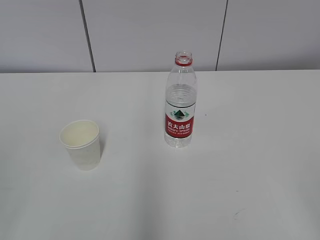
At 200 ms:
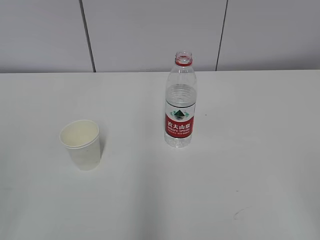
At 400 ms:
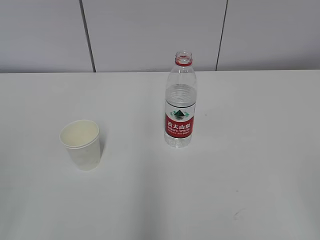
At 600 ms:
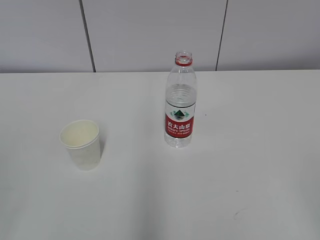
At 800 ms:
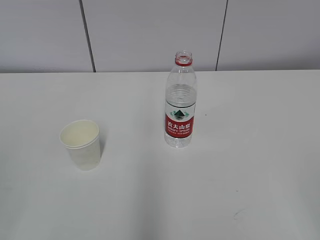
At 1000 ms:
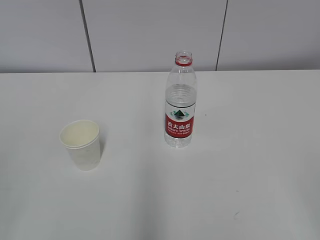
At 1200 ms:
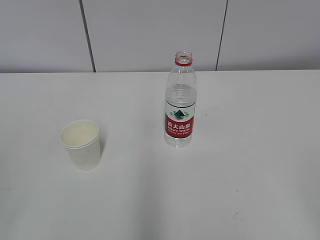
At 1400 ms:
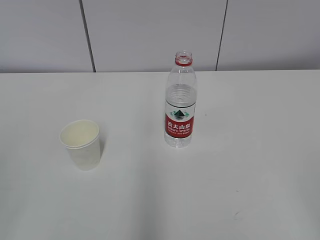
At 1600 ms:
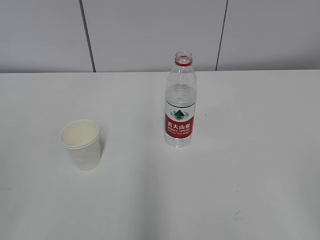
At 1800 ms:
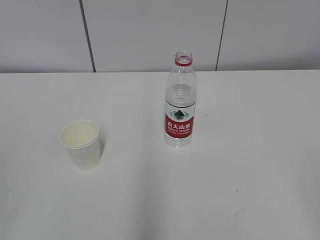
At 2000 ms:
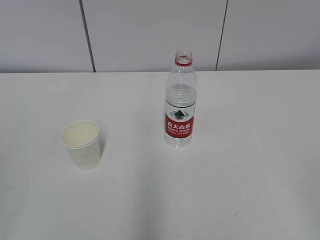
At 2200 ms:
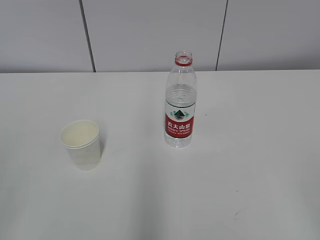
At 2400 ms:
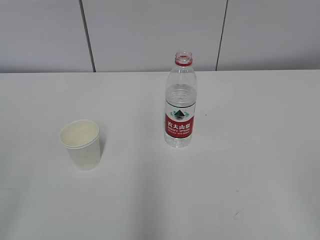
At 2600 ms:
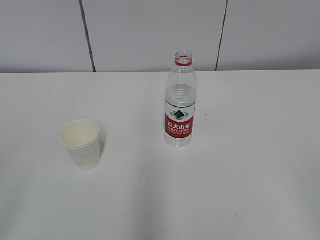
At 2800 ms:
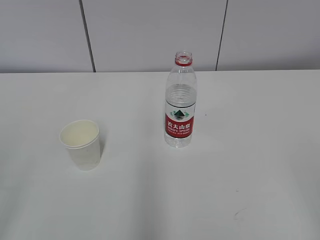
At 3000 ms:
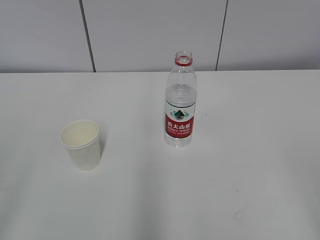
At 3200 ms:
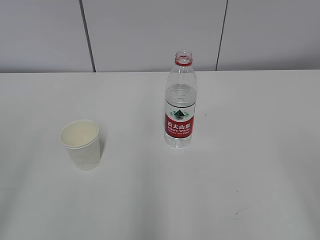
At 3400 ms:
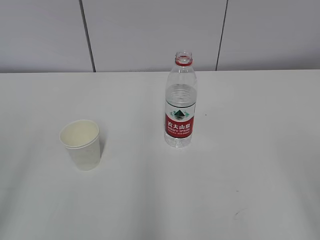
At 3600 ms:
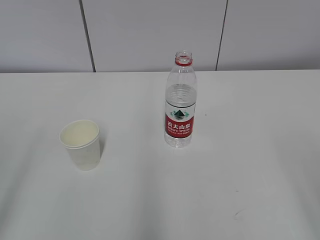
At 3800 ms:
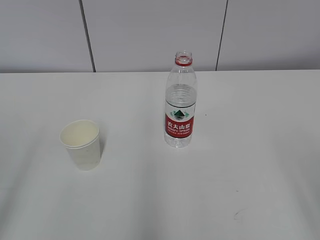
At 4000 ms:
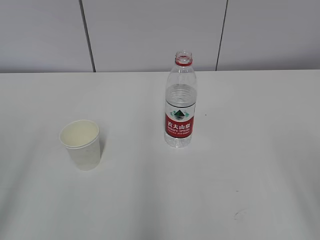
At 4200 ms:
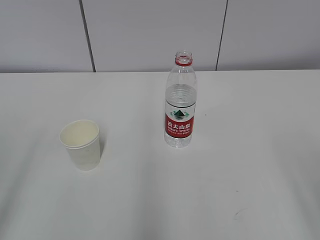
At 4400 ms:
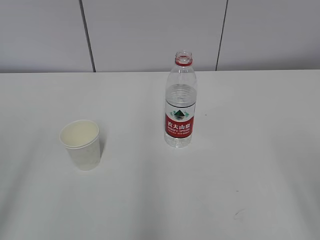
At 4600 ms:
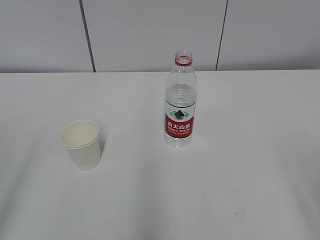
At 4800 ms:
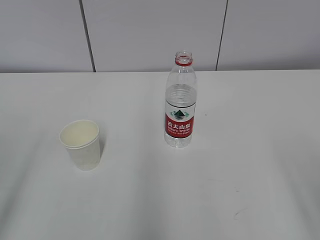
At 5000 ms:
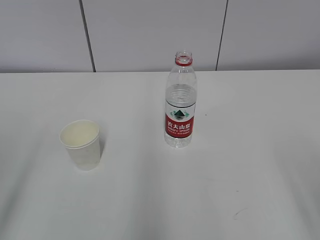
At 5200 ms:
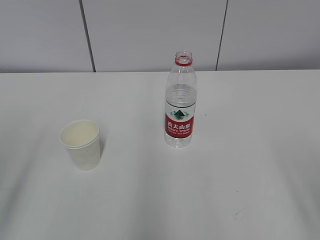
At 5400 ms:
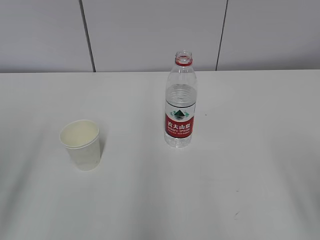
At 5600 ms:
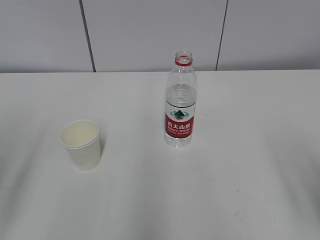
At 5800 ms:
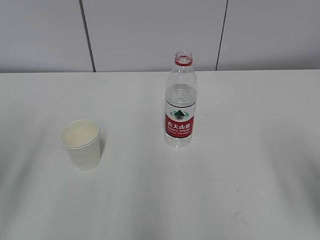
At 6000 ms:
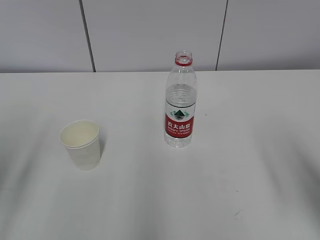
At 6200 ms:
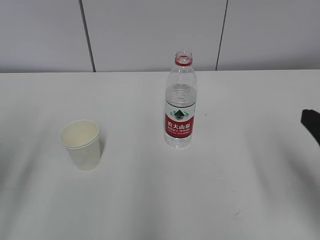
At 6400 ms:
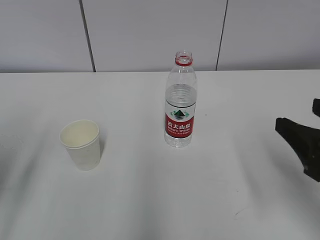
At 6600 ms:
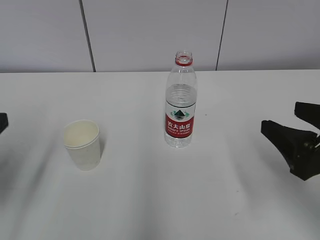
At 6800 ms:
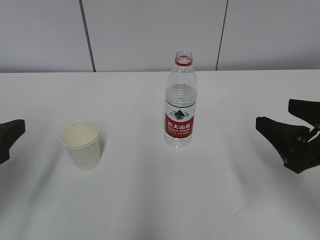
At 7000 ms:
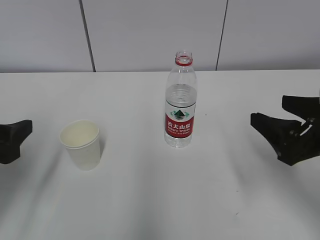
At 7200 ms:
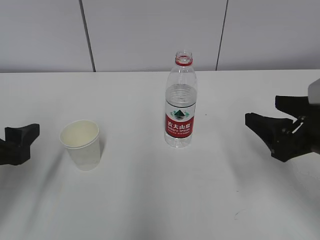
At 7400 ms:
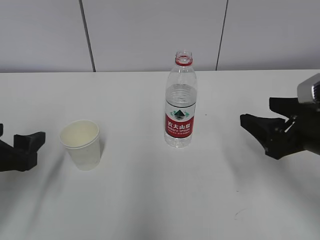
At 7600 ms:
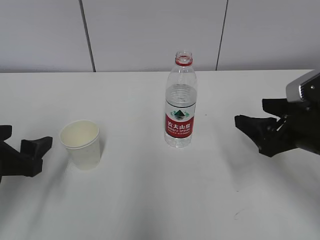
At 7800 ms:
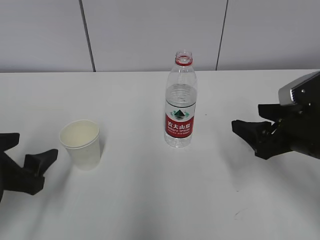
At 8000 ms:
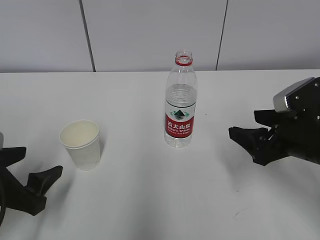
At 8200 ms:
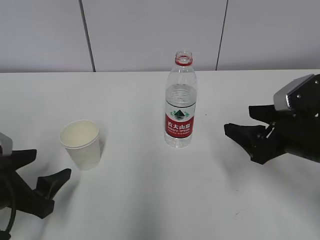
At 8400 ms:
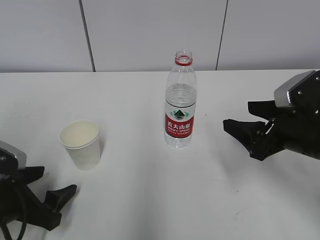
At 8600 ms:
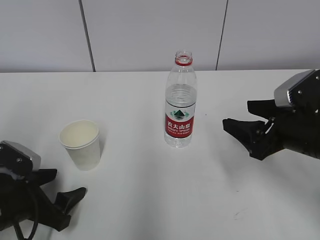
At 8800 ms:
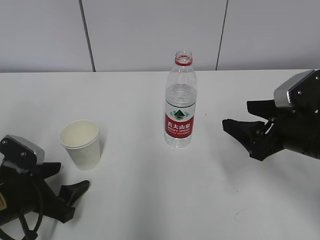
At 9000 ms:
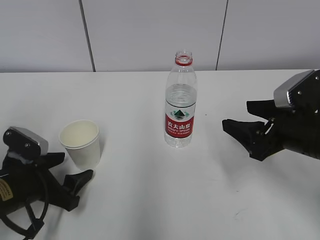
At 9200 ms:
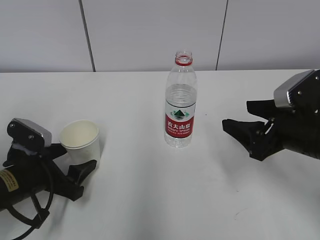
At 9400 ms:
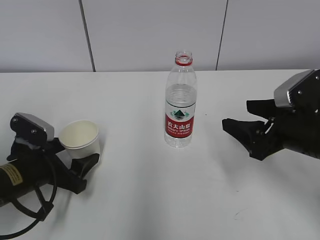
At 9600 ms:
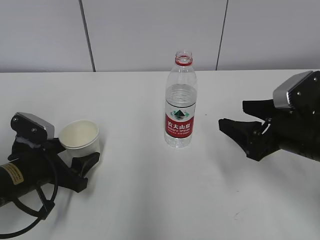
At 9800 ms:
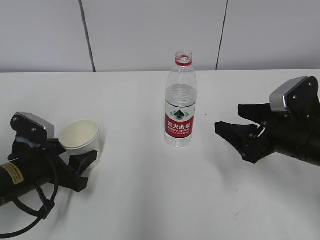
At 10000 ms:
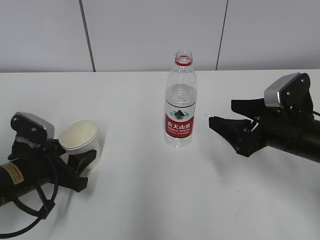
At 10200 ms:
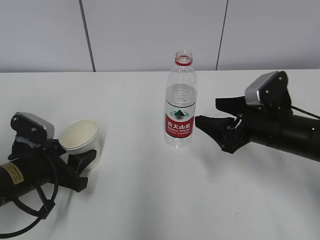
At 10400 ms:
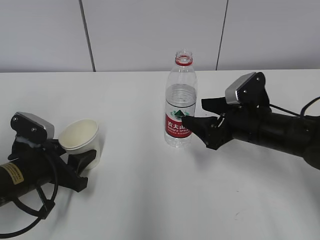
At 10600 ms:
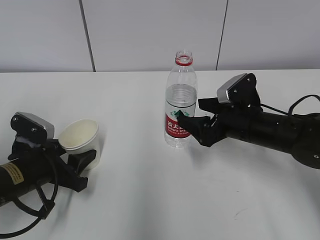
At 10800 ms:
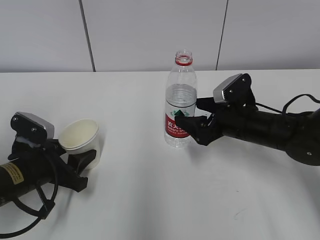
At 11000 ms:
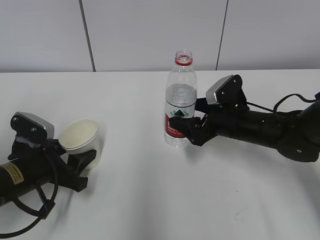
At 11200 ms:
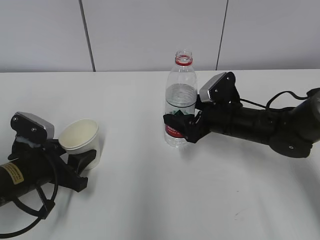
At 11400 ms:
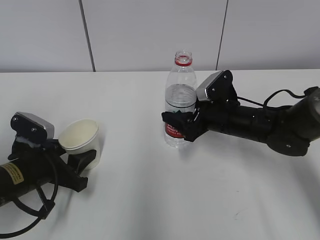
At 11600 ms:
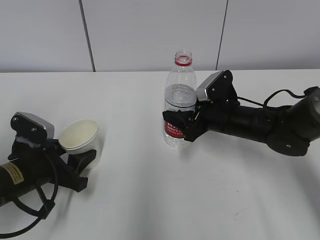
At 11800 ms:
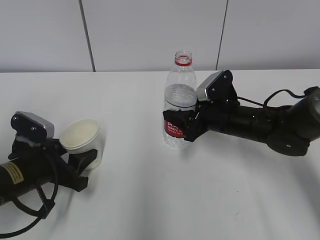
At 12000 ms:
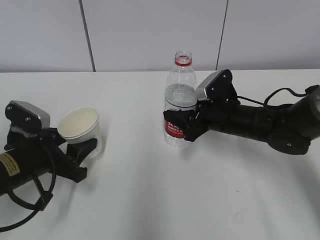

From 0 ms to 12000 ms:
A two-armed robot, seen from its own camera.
Step, from 0 ms to 9600 ms: Grab the paper cup with the left hand.
Step, from 9800 ms to 10000 ms: Grab the water bottle with the right hand.
From 4400 ms to 6000 ms: The right gripper heads forward, covering some 10 cm.
From 6000 ms to 7600 ms: The right gripper goes about 15 cm forward and downward, while the left gripper goes about 10 cm downward and forward.
From 7600 ms to 9000 ms: The left gripper travels downward by roughly 10 cm.
From 9000 ms to 10400 ms: The right gripper moves forward, roughly 5 cm; the left gripper closes its fingers.
From 10400 ms to 12000 ms: The right gripper shifts by roughly 5 cm, and closes its fingers.

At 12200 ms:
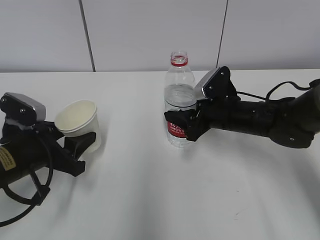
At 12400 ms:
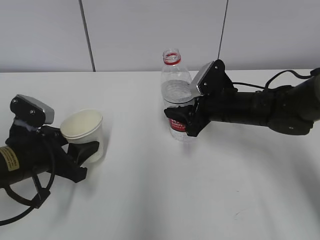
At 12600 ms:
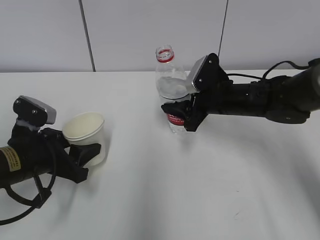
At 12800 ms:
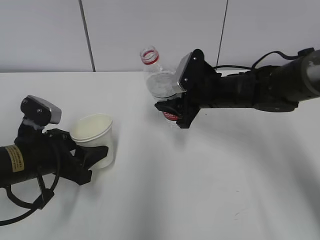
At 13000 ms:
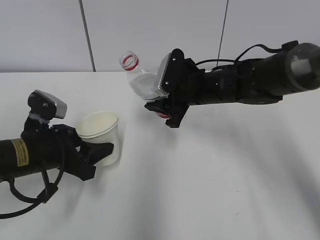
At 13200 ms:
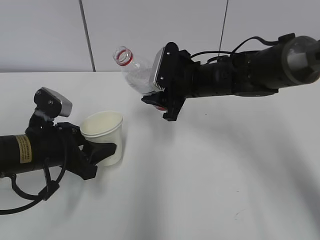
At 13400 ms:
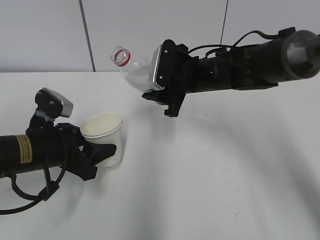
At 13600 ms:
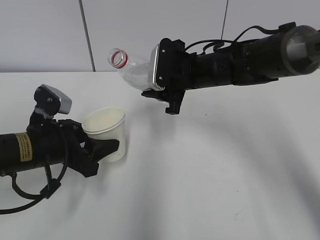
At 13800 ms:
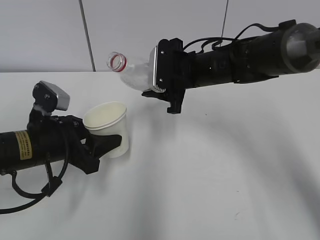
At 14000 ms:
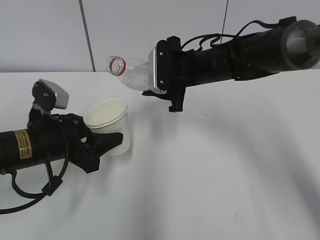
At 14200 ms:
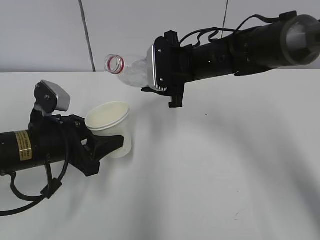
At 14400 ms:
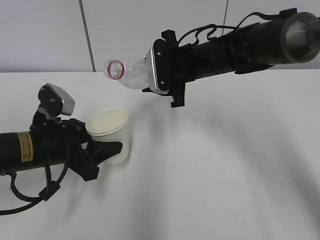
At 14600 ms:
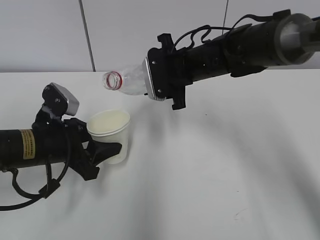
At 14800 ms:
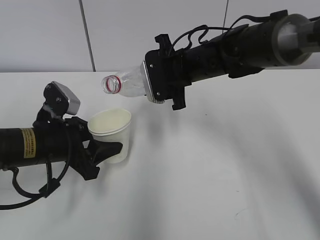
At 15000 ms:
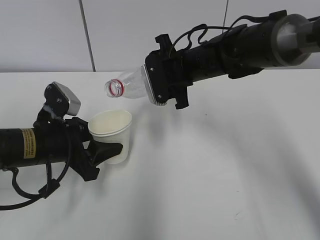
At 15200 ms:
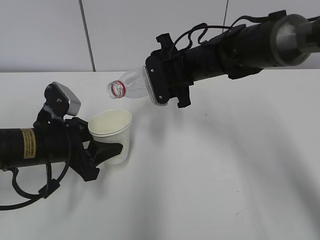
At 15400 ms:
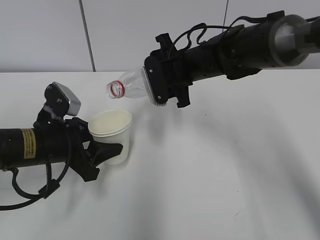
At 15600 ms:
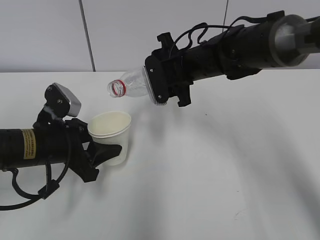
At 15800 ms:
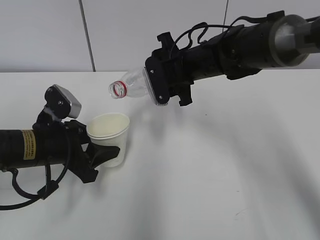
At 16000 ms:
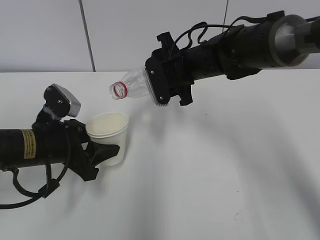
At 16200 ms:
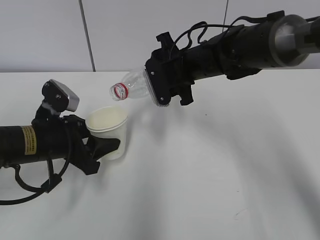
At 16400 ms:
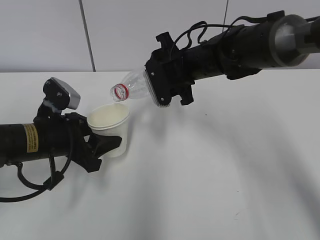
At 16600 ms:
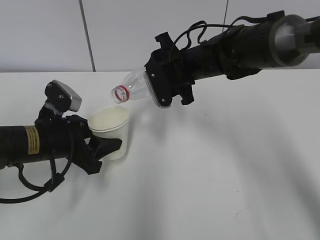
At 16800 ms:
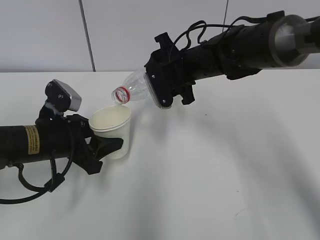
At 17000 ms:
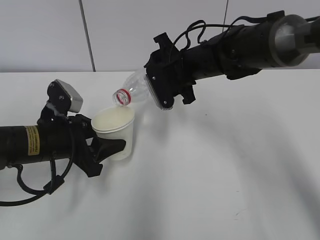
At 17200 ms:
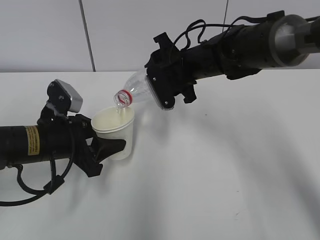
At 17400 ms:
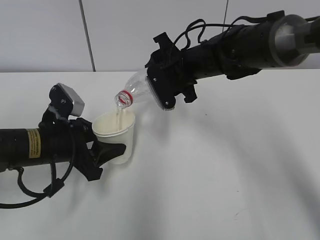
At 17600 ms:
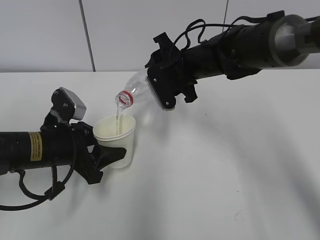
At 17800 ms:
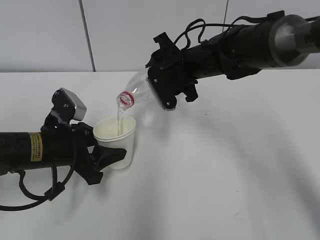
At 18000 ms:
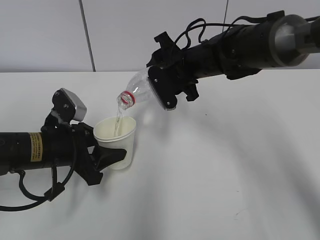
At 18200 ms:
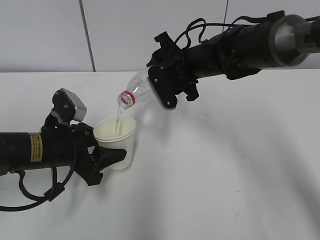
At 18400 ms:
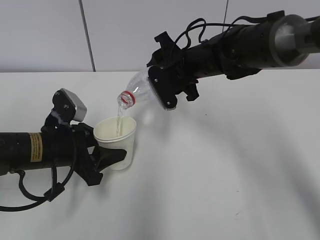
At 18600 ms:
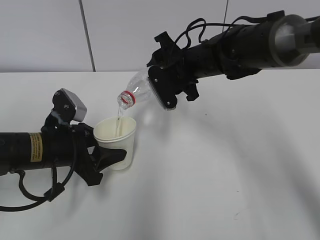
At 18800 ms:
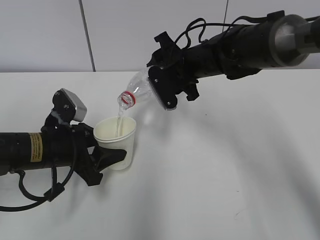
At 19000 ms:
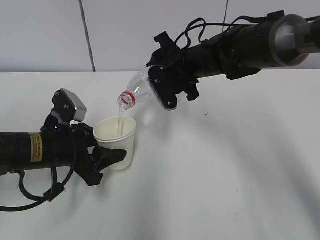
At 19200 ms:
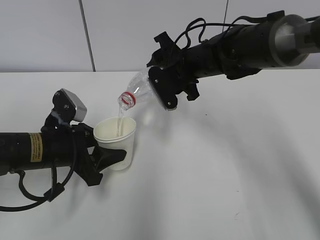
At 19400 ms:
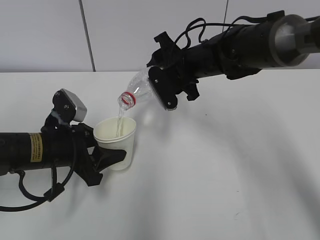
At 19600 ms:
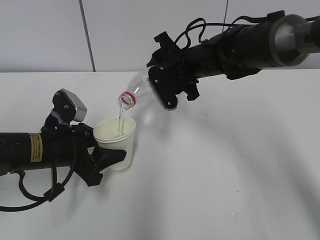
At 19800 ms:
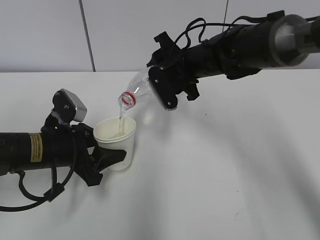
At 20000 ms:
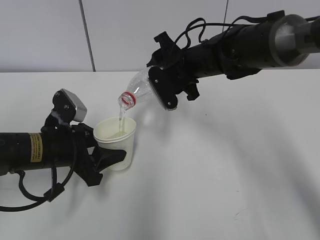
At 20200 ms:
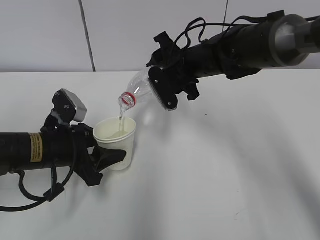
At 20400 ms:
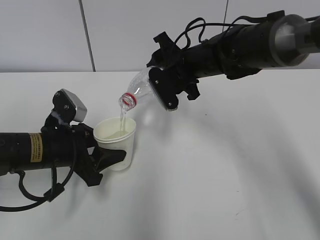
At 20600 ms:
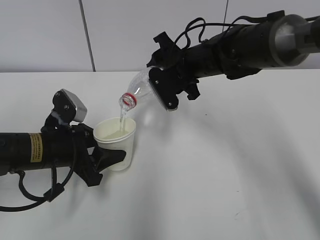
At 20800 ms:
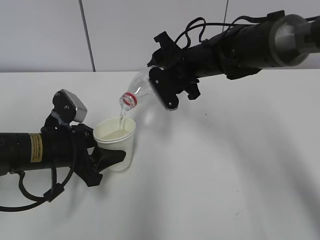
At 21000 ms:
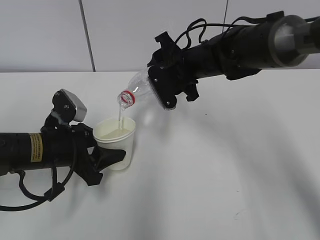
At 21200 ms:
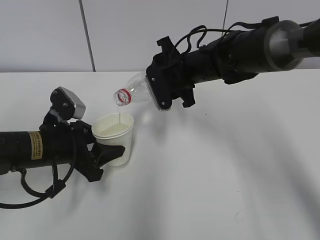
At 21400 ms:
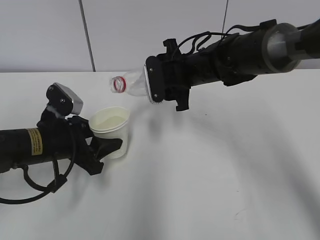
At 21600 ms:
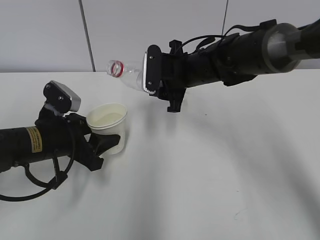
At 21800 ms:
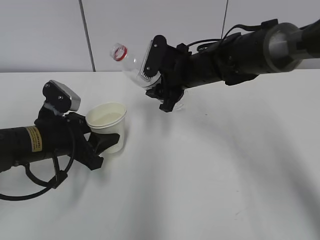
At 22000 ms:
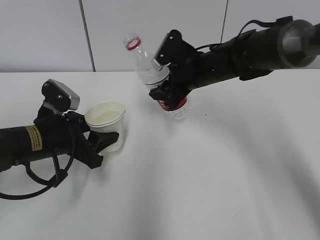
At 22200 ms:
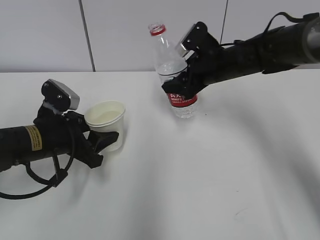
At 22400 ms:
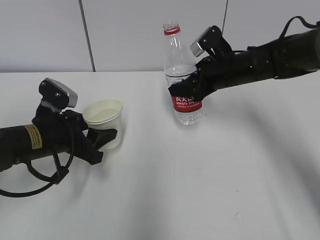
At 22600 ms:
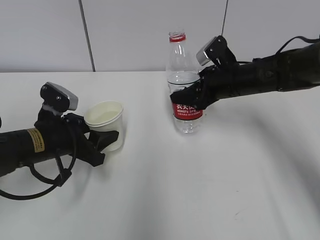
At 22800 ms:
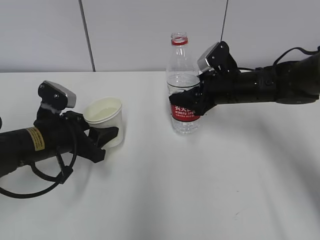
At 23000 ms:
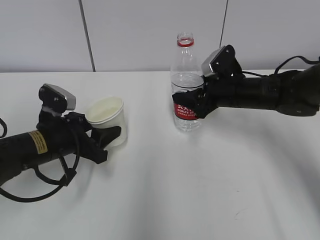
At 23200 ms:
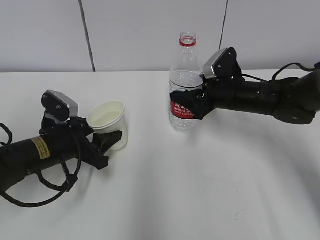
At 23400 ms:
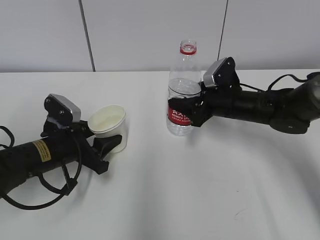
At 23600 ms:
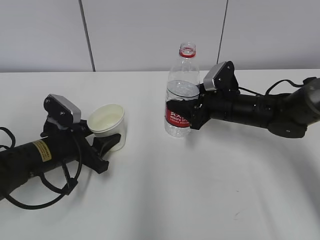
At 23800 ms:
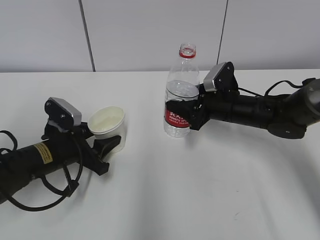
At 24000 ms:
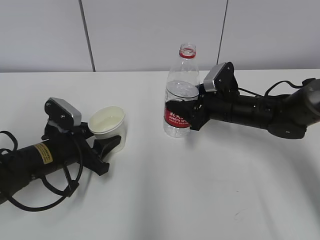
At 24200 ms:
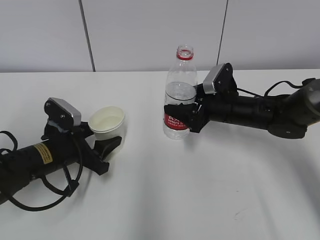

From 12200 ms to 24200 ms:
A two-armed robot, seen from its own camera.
Step, from 12200 ms to 14200 ms: Lift the paper cup with the left hand.
Step, from 14400 ms to 17600 ms: Fill water with the left hand.
Step, from 14400 ms to 17600 ms: Pour water with the right hand.
From 12200 ms to 13800 ms: The right gripper travels upward and to the left by about 10 cm.
From 15200 ms to 18200 ms: The grippers stay close to where they were, moving slightly.
From 18200 ms to 19800 ms: The two grippers keep their place.
From 19800 ms to 21200 ms: The grippers stay close to where they were, moving slightly.
From 21200 ms to 22600 ms: The right gripper is displaced to the right by some 10 cm.
From 22600 ms to 24200 ms: The right gripper heads downward, covering approximately 5 cm.
